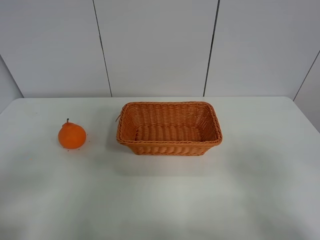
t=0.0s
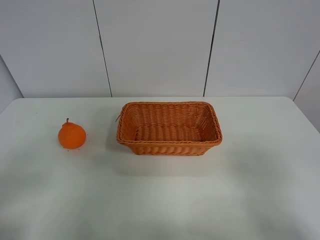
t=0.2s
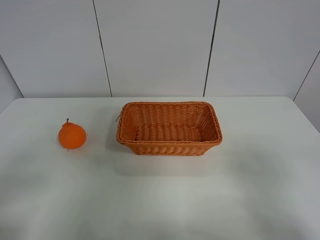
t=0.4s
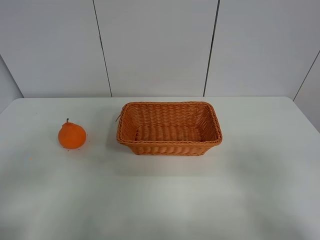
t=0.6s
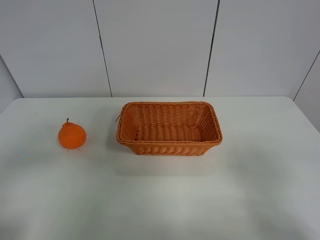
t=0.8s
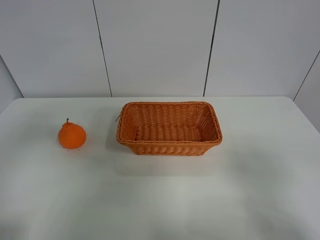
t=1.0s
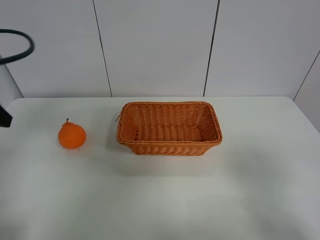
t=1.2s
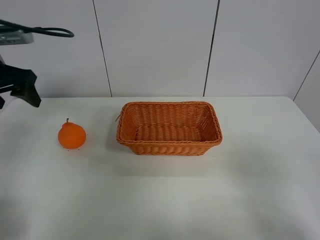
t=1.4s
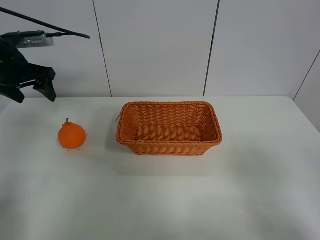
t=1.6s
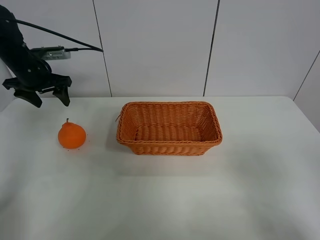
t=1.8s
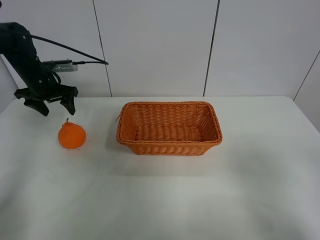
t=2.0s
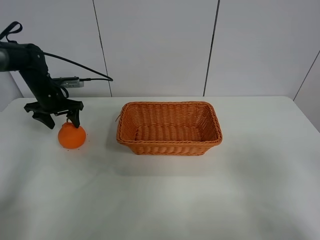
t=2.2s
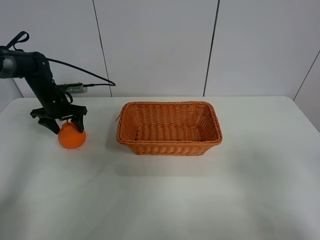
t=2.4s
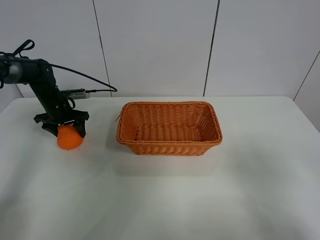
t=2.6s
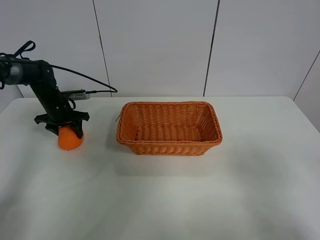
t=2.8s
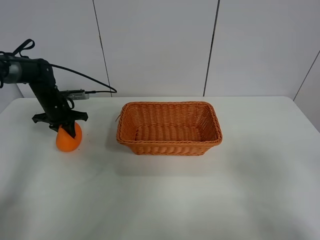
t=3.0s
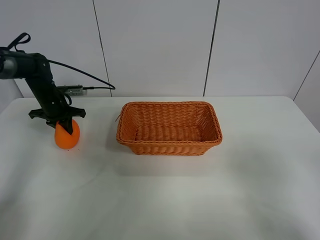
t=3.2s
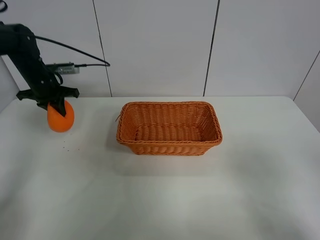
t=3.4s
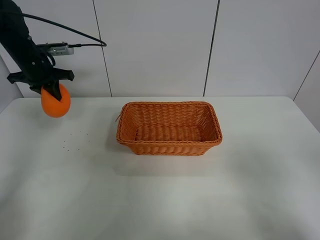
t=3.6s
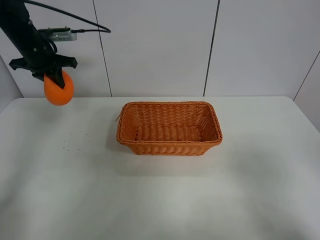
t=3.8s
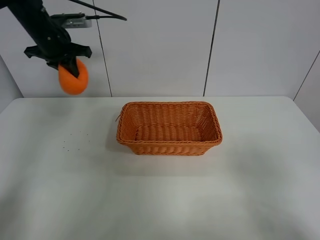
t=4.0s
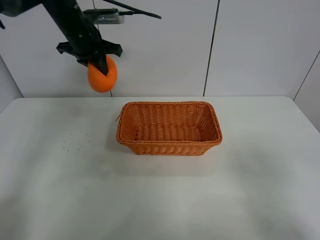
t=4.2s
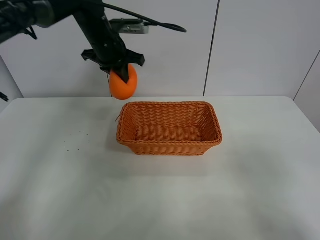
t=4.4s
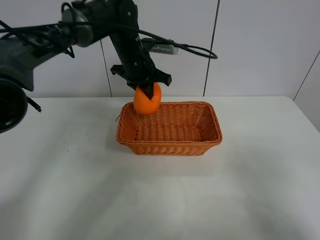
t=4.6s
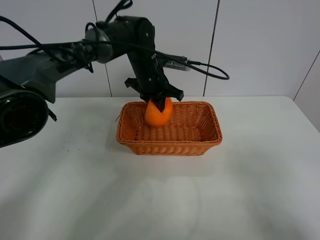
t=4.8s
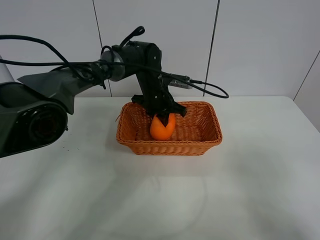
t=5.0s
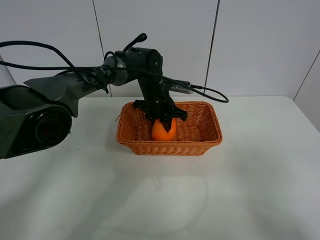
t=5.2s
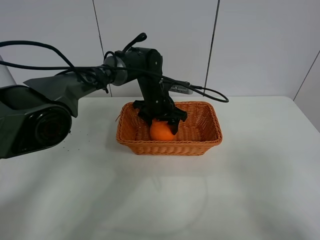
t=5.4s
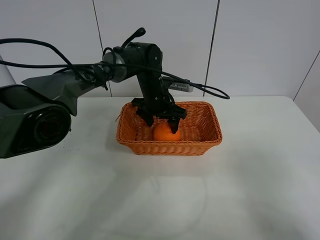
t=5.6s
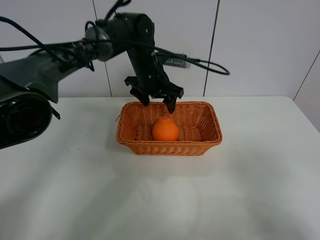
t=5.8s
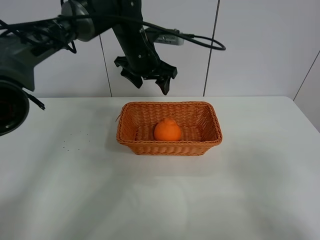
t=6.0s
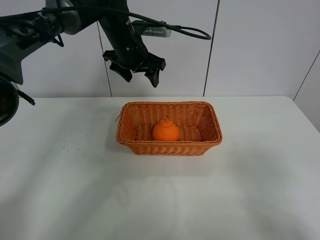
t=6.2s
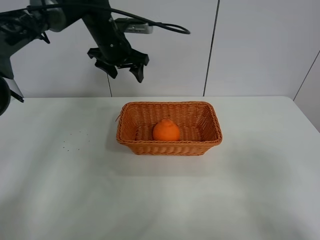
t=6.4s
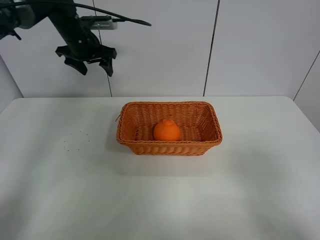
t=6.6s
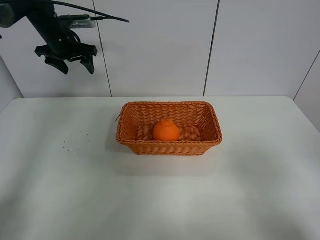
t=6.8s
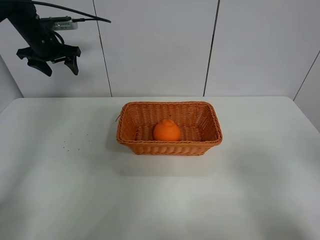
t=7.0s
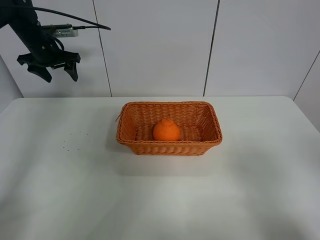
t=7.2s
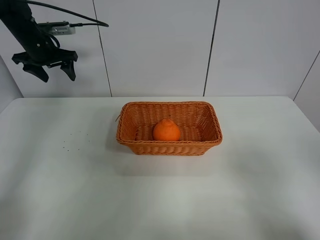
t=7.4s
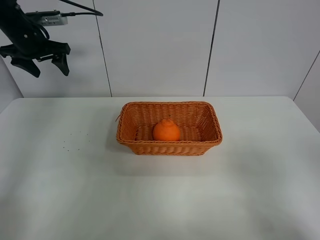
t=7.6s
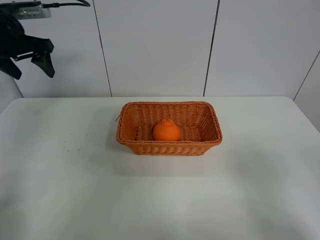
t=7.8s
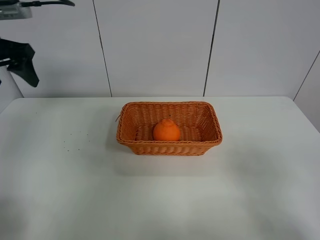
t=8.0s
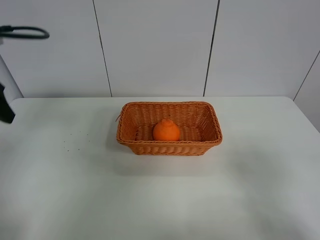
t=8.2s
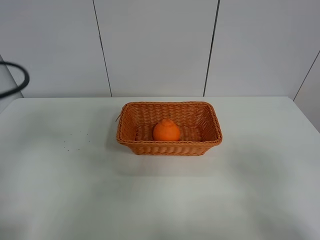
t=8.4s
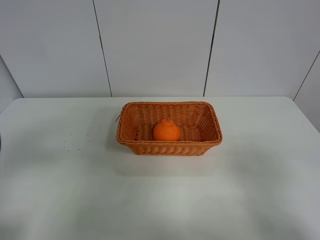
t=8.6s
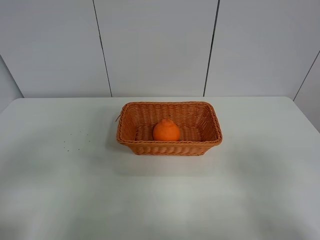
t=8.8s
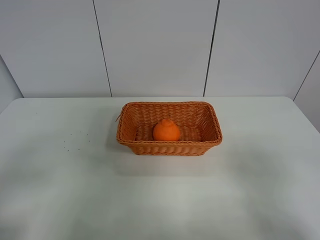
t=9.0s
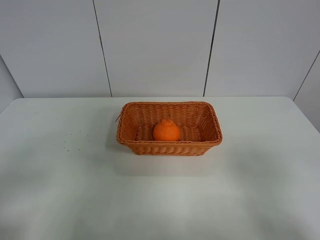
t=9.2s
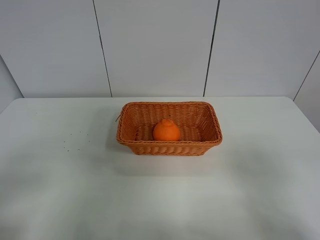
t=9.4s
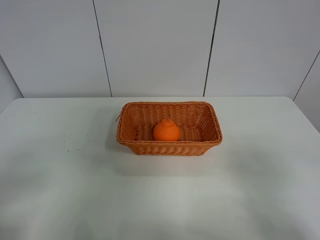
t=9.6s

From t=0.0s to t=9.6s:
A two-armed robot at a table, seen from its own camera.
Task of the whole recording: left gripper grabs oranges and puts them in the basket.
Step, from t=0.0s to t=3.0s: Grasp the orange with left gripper.
Step, from t=3.2s to t=6.6s: Place the orange in the basket with left gripper.
From t=0.0s to t=1.6s: The left gripper is displaced forward by roughly 35 cm.
From t=1.6s to t=3.2s: The left gripper is displaced downward and forward by about 15 cm, and closes.
From t=3.2s to t=4.8s: The left gripper shifts roughly 30 cm to the right.
From t=4.8s to t=6.4s: The left gripper moves to the left and upward, about 15 cm, and opens its fingers.
From t=6.4s to t=8.0s: The left gripper heads to the left and backward, covering roughly 25 cm.
From t=8.0s to t=9.6s: The left gripper shifts approximately 30 cm backward.
